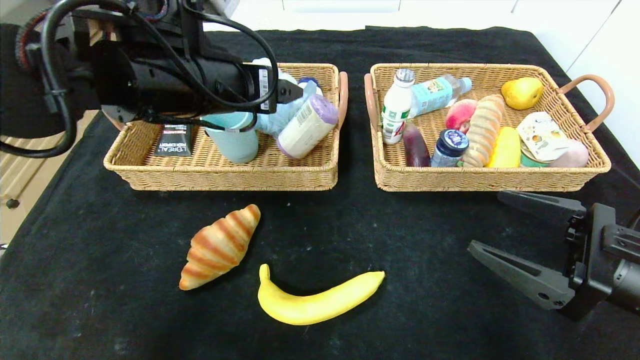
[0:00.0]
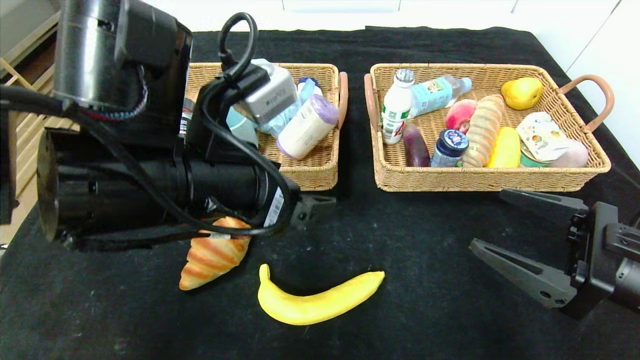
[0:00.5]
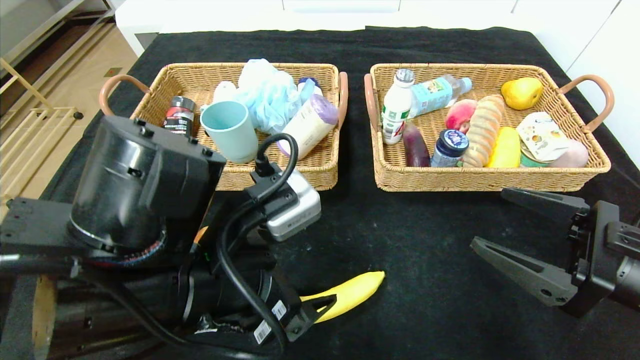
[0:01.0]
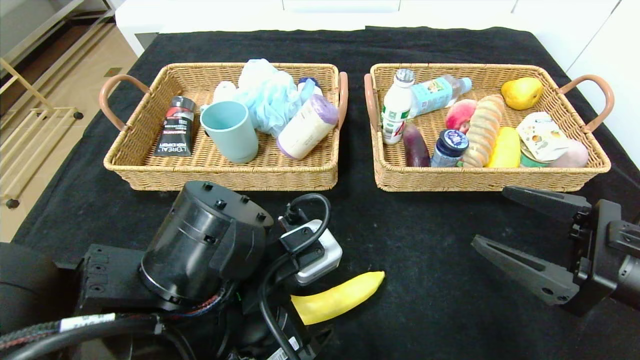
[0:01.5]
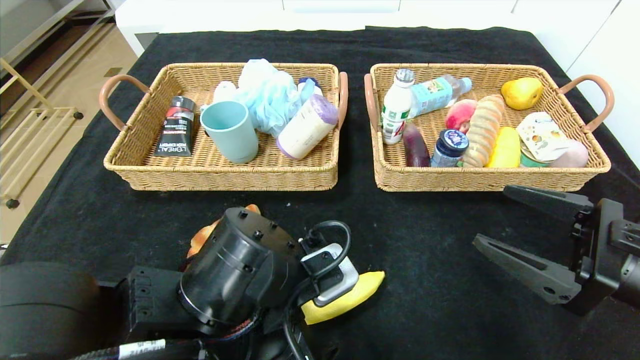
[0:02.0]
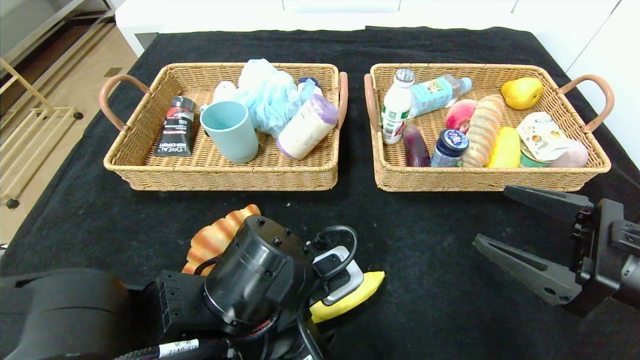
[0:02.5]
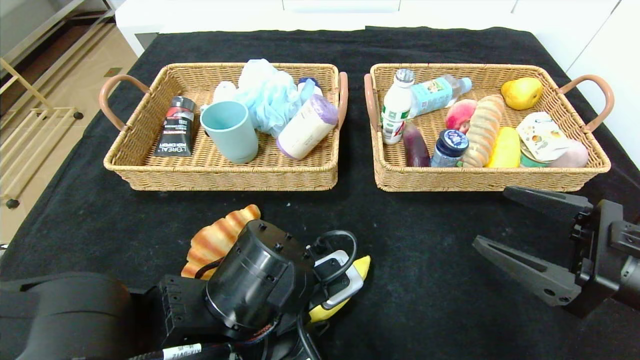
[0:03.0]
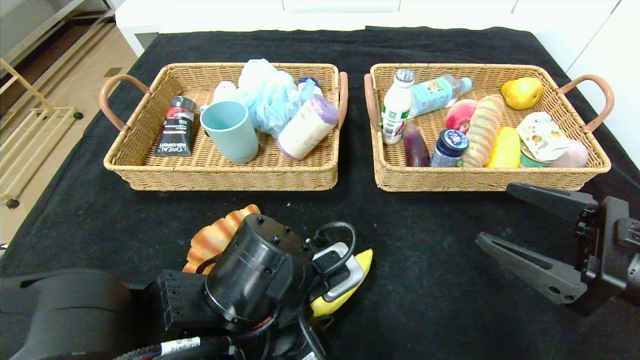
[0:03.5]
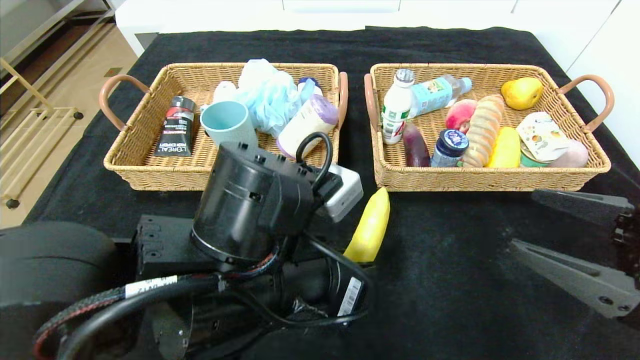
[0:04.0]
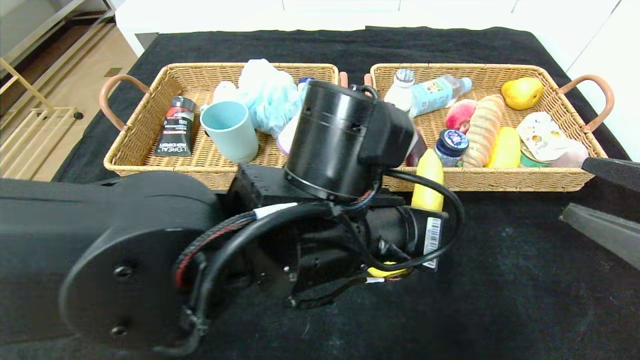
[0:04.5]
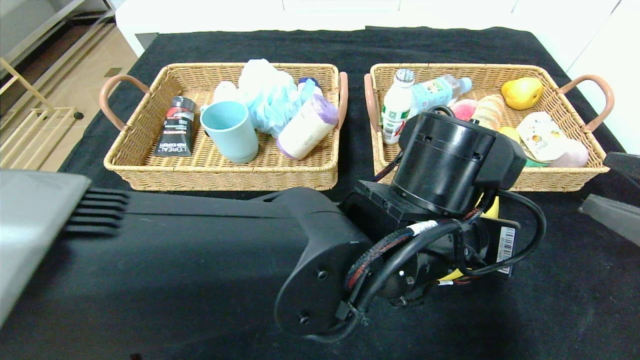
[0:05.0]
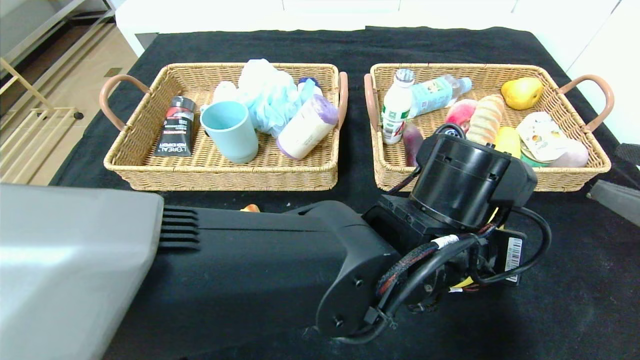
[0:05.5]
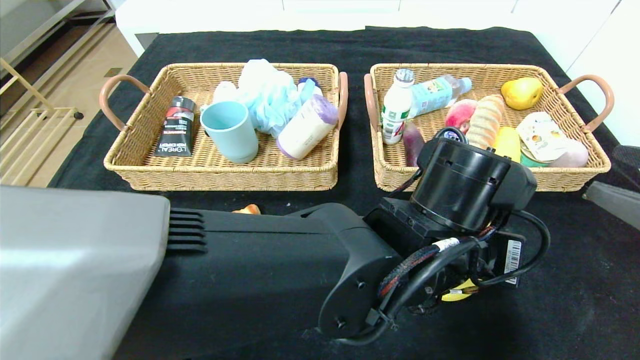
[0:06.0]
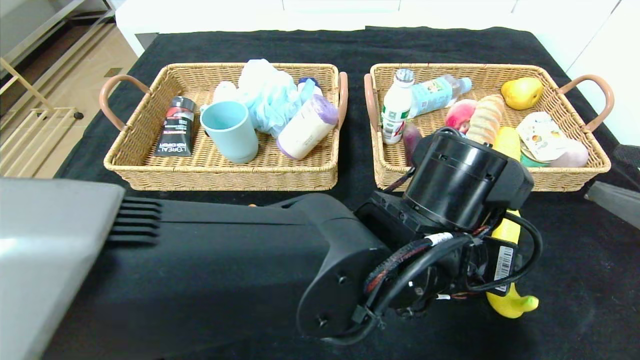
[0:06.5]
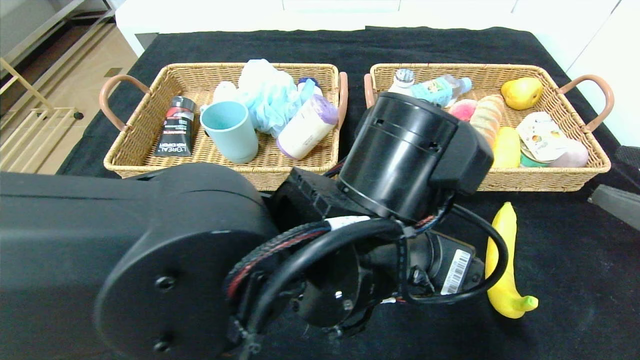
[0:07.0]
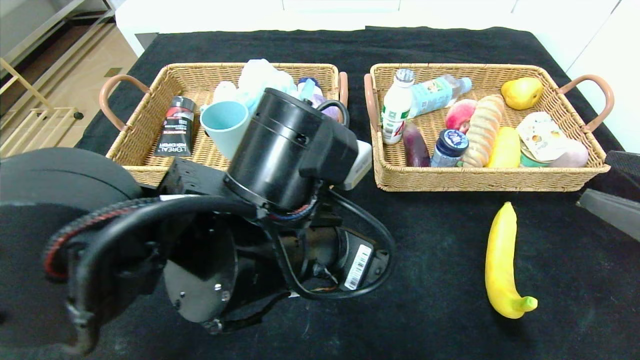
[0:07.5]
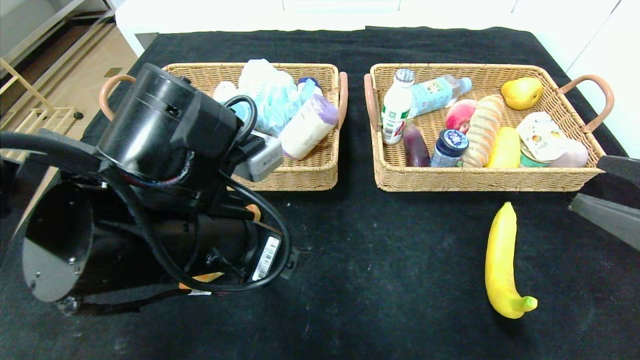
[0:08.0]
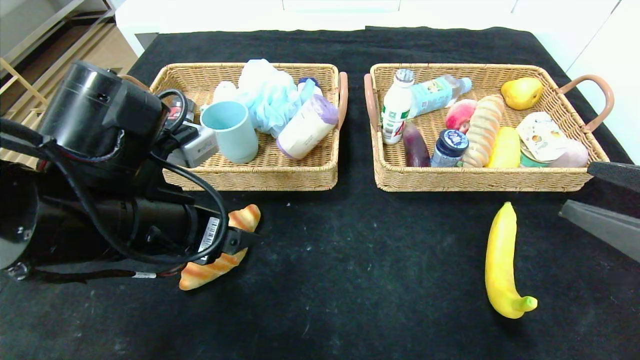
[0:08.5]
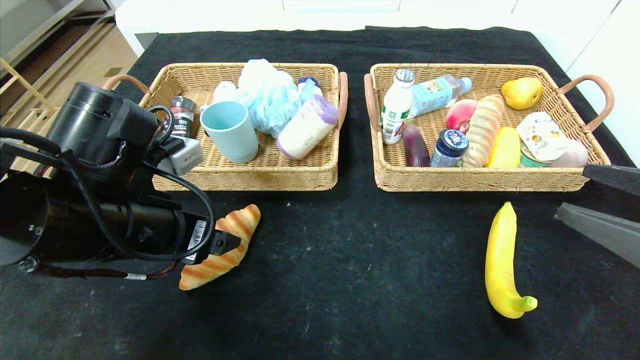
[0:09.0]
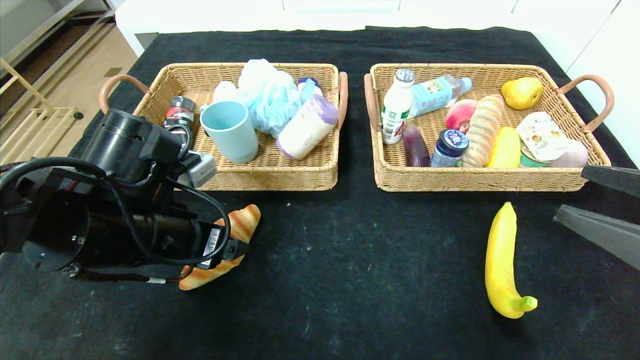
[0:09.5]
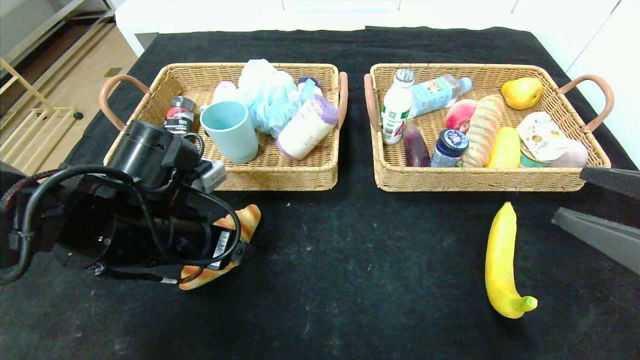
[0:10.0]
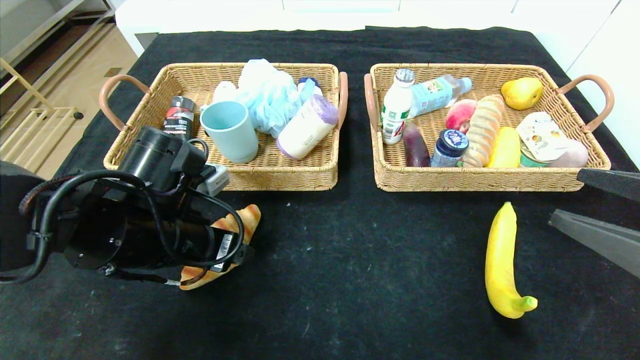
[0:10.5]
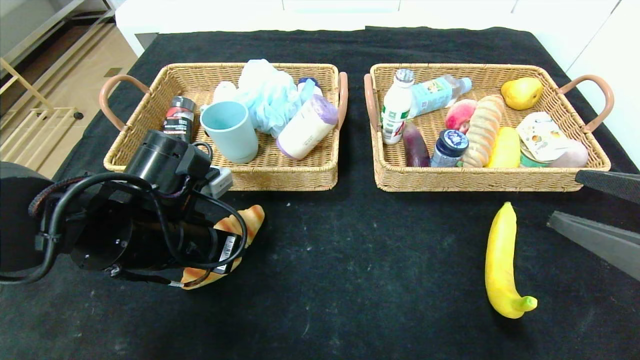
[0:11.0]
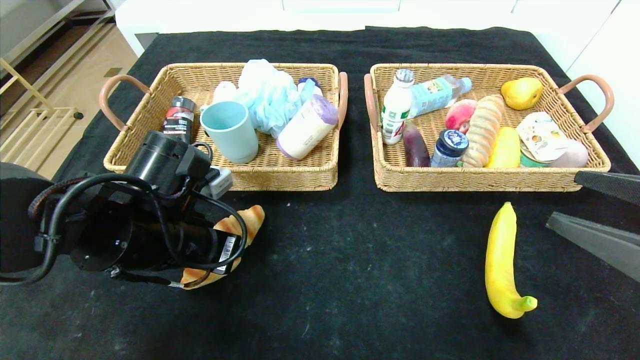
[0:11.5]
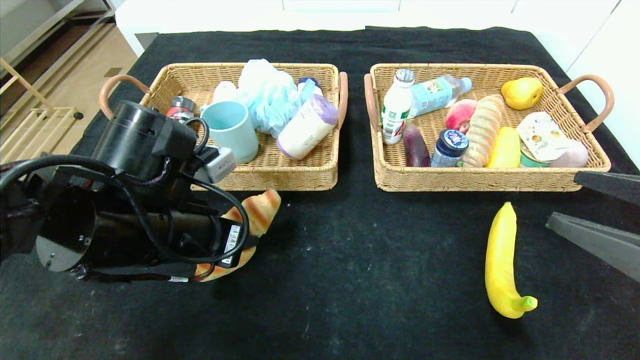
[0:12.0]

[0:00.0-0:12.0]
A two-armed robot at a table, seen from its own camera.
Step, 0:00.0 to 0:06.0: Place the banana in the center of the table.
0:00.0 to 0:02.0: The left gripper goes approximately 20 cm downward and backward.
0:02.0 to 0:04.0: The left gripper shifts by approximately 5 cm, and closes.
0:04.0 to 0:06.0: The right gripper moves roughly 5 cm, while the left gripper travels to the right by approximately 15 cm.
0:06.0 to 0:08.0: The left gripper is displaced to the left by about 20 cm, and opens its fingers.
0:08.0 to 0:10.0: The left gripper is displaced to the left and forward by about 10 cm.
0:10.0 to 0:12.0: The left gripper closes.

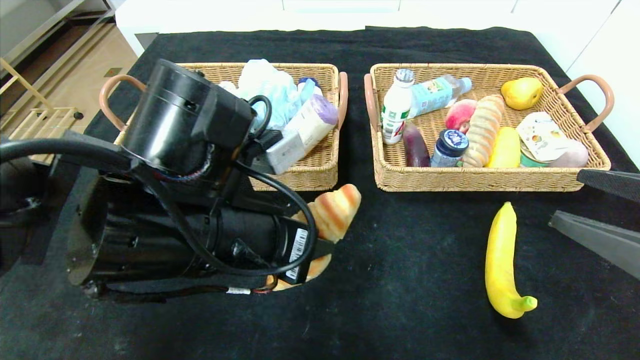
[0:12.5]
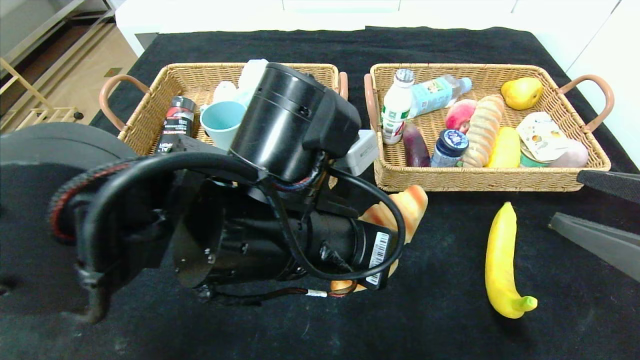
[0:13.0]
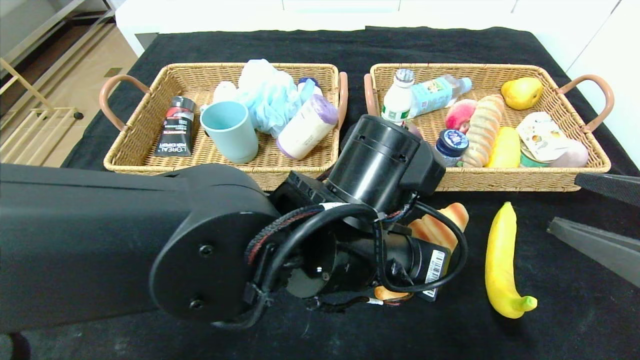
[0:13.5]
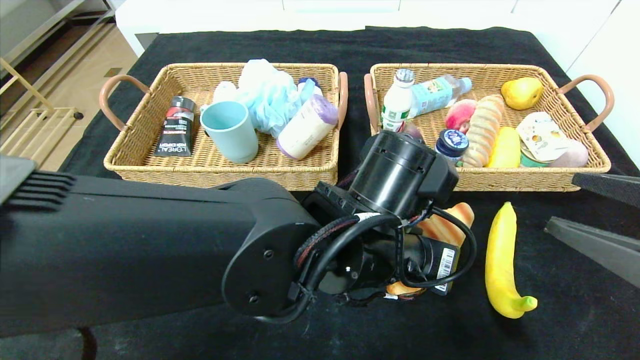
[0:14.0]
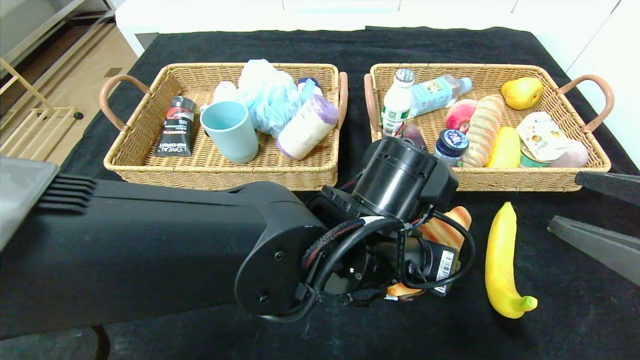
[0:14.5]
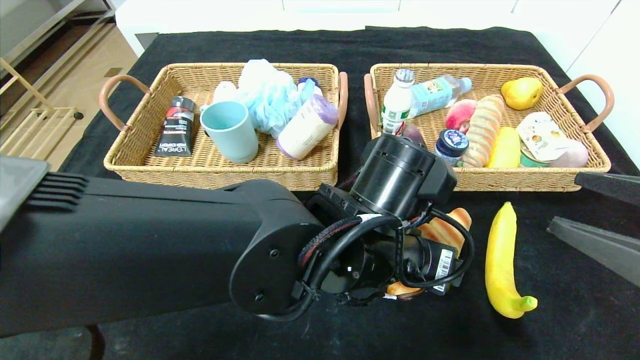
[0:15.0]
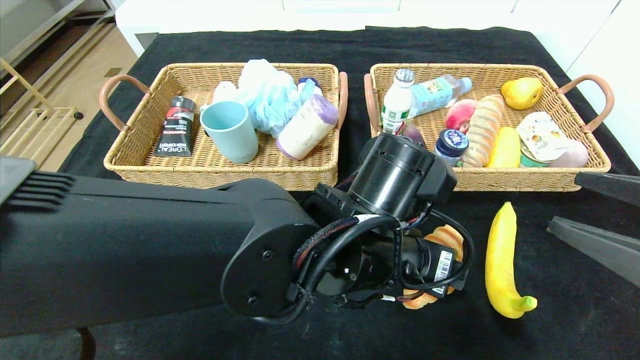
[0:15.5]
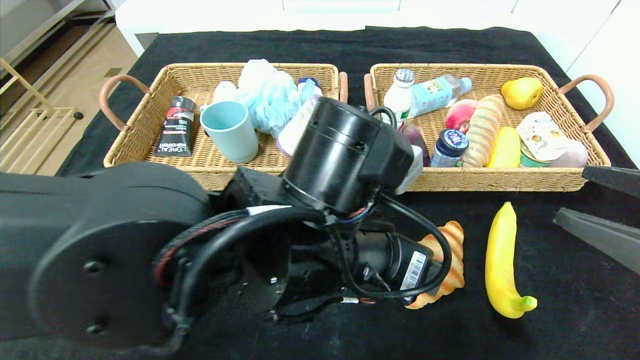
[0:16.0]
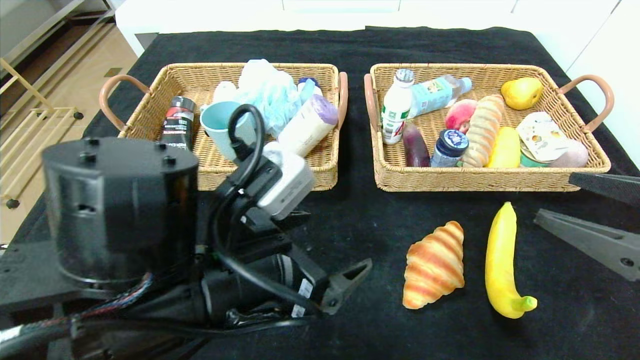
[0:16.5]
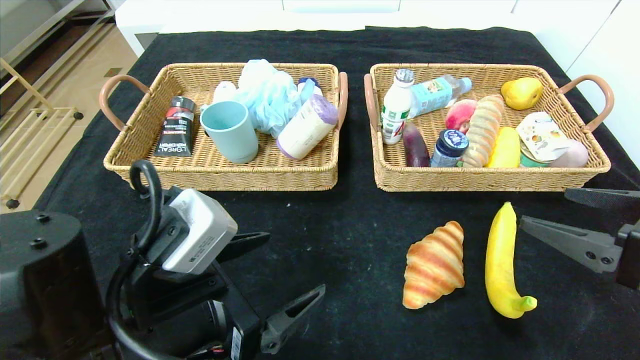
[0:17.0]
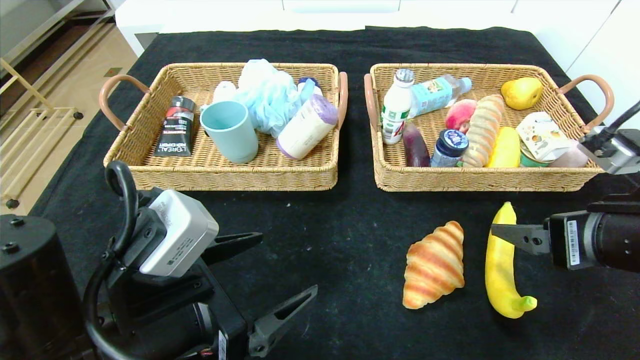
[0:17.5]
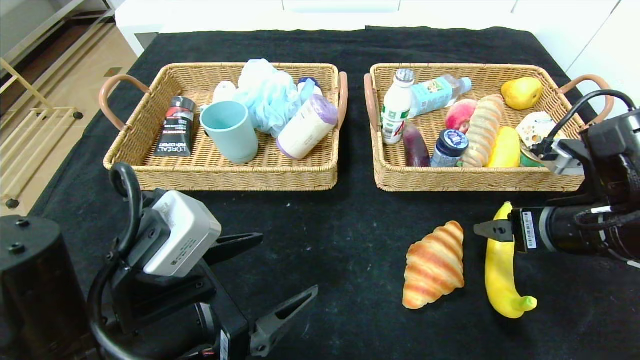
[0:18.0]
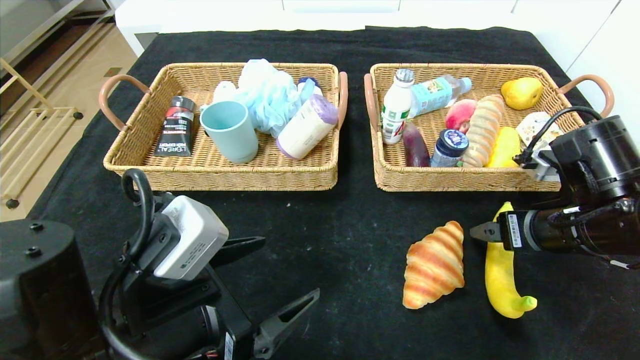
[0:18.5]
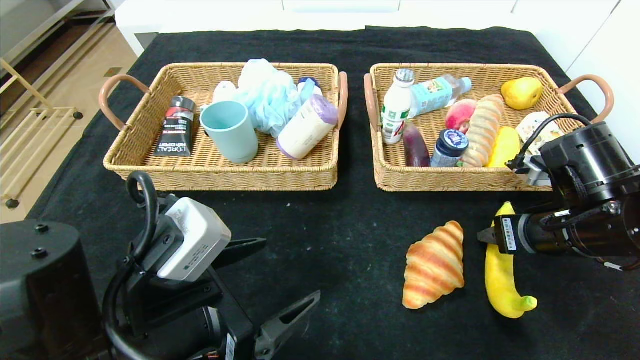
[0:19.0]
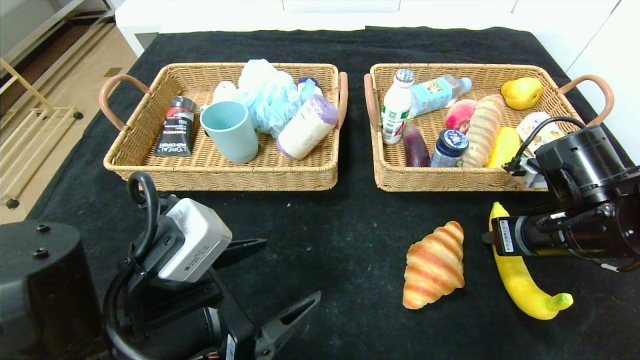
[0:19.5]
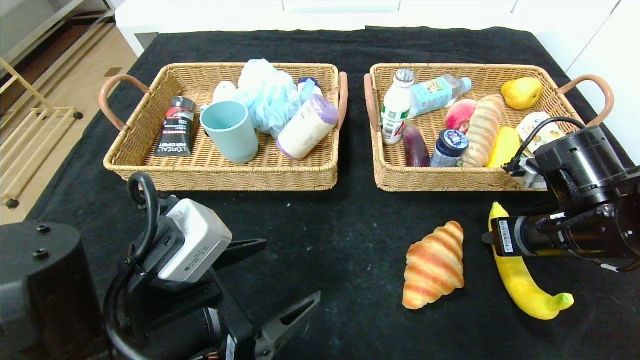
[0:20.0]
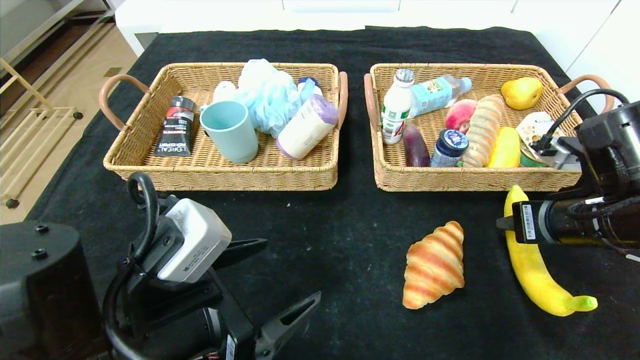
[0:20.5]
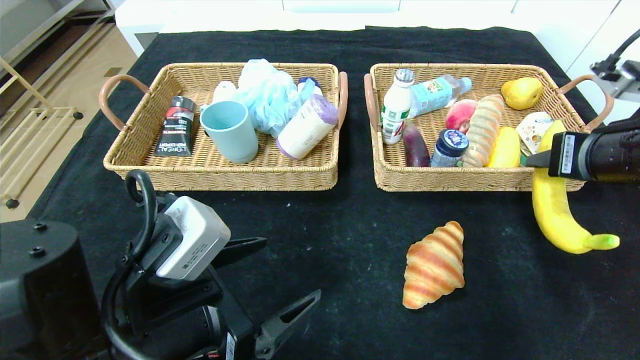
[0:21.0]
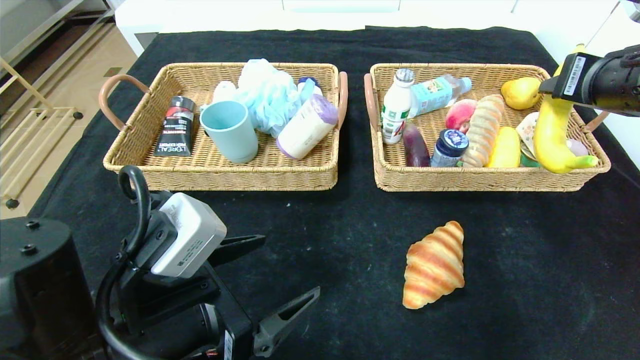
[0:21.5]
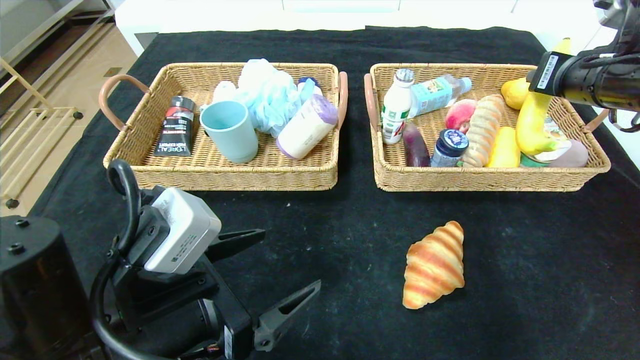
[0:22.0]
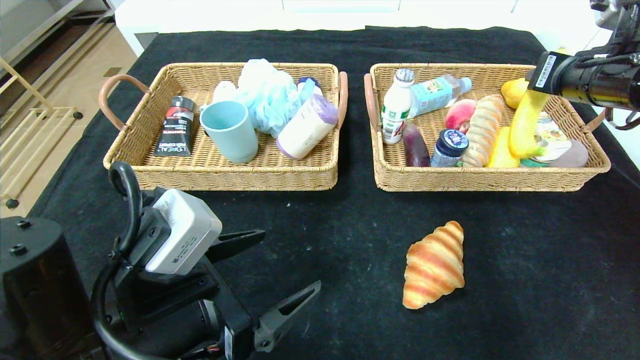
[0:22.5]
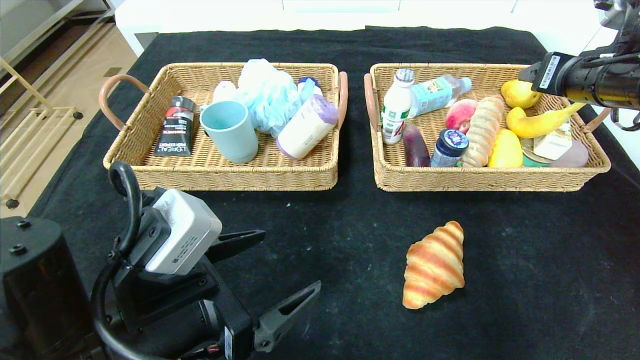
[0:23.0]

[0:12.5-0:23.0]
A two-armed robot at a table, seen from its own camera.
Step, 0:12.5 to 0:15.5: Place the croissant in the center of the table.
Step, 0:16.0 to 0:23.0: Grasp the banana and put it in the right basket.
0:12.5 to 0:14.5: The left gripper travels to the right by about 15 cm, and opens up.
0:14.5 to 0:16.5: The left gripper heads to the left and backward, covering roughly 15 cm.
0:16.5 to 0:19.0: The right gripper travels forward by some 10 cm, and closes its fingers, while the left gripper ends up roughly 5 cm from where it was.
0:19.0 to 0:21.0: The right gripper heads upward, covering some 10 cm.
0:21.0 to 0:23.0: The right gripper travels forward by some 10 cm, and opens.
